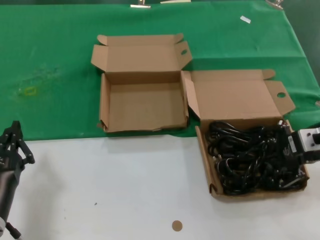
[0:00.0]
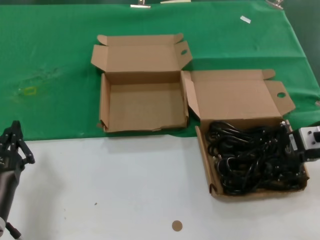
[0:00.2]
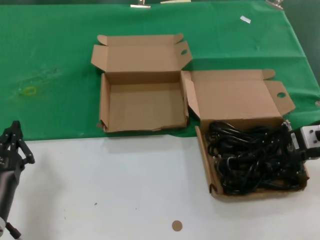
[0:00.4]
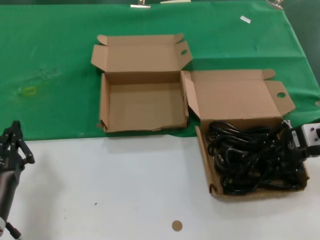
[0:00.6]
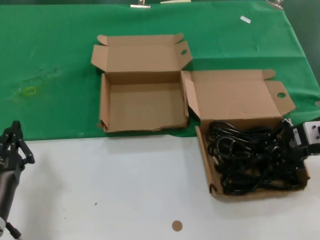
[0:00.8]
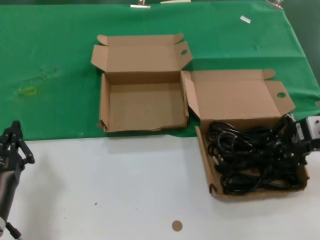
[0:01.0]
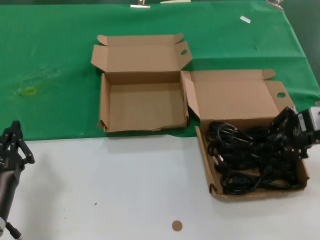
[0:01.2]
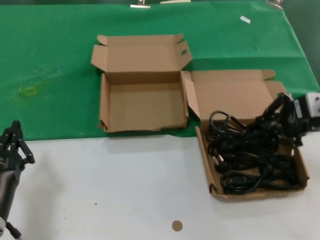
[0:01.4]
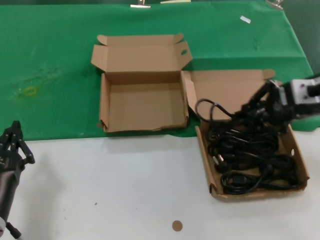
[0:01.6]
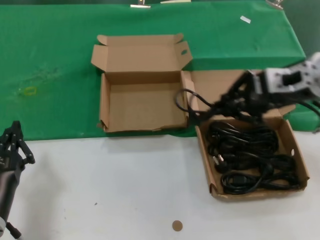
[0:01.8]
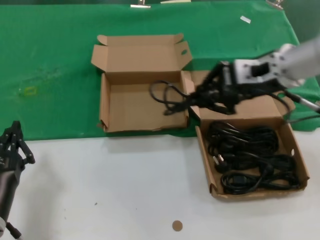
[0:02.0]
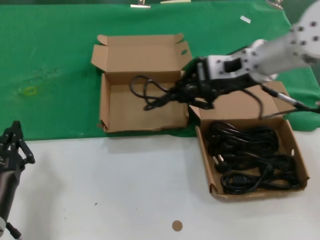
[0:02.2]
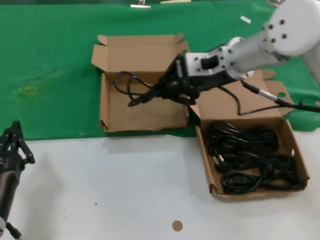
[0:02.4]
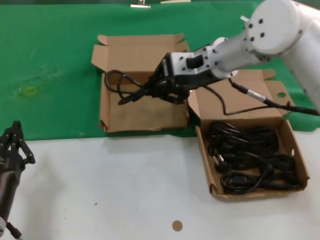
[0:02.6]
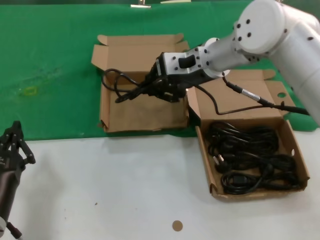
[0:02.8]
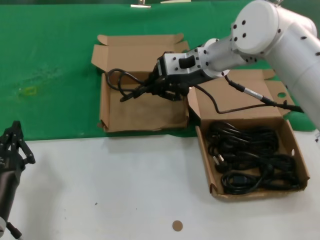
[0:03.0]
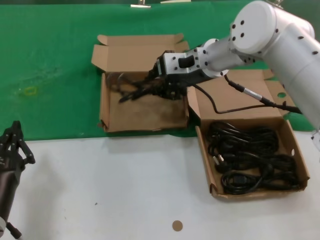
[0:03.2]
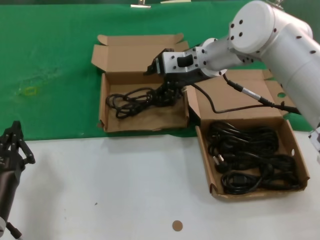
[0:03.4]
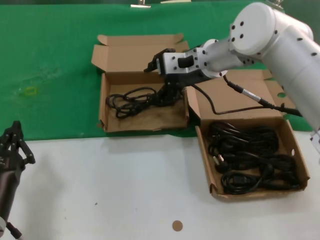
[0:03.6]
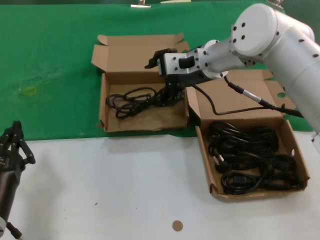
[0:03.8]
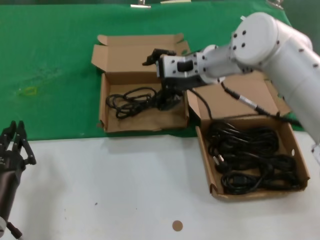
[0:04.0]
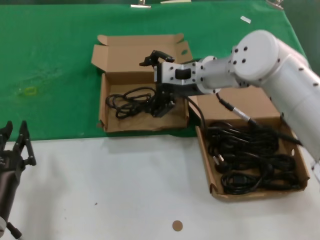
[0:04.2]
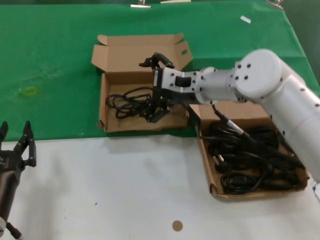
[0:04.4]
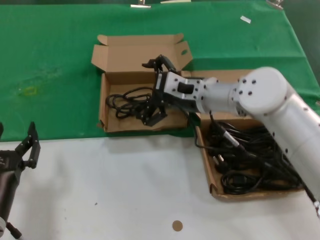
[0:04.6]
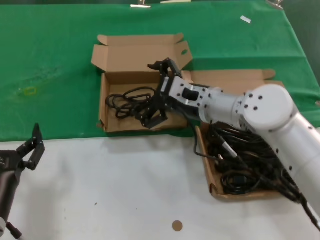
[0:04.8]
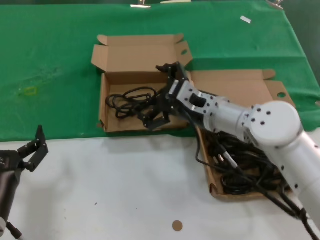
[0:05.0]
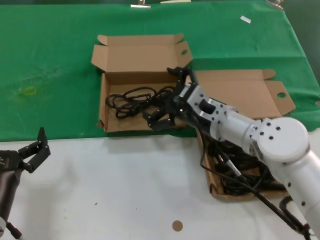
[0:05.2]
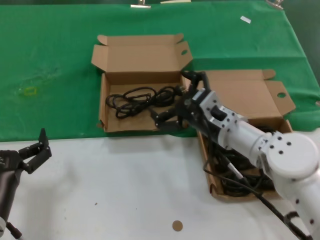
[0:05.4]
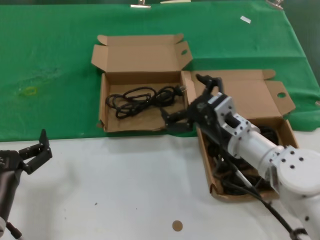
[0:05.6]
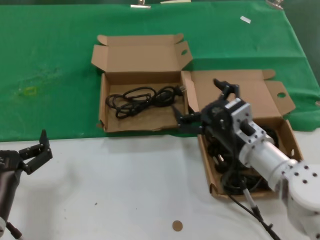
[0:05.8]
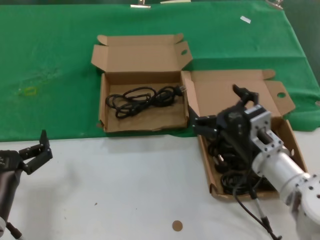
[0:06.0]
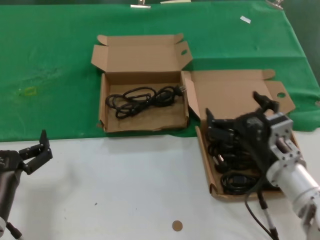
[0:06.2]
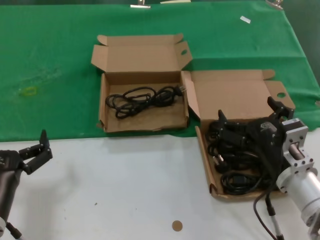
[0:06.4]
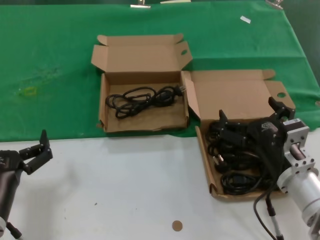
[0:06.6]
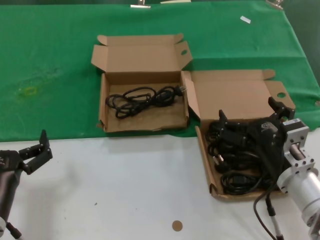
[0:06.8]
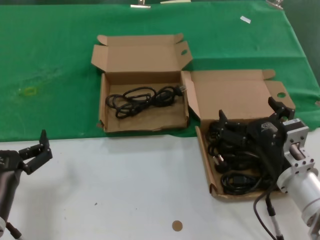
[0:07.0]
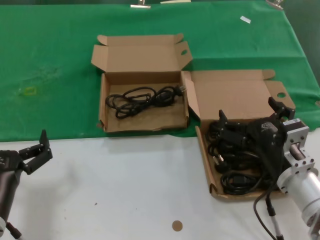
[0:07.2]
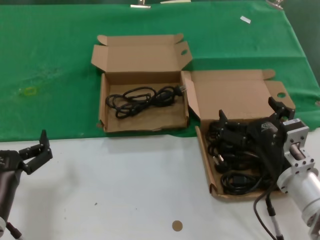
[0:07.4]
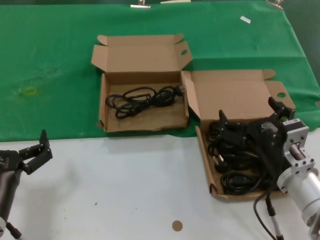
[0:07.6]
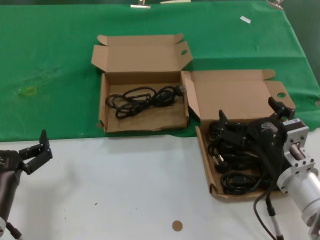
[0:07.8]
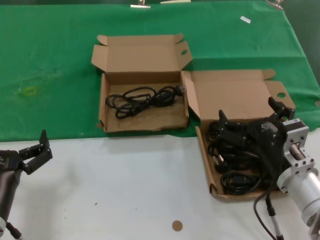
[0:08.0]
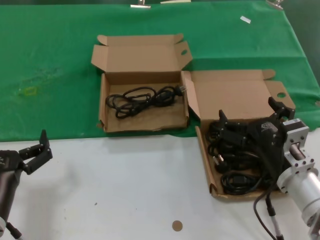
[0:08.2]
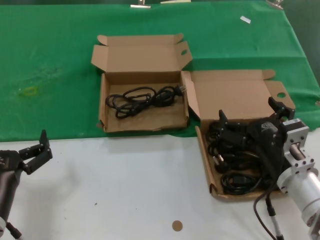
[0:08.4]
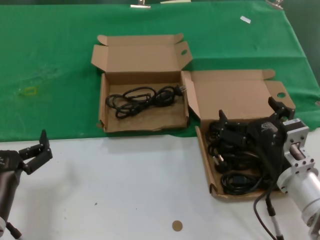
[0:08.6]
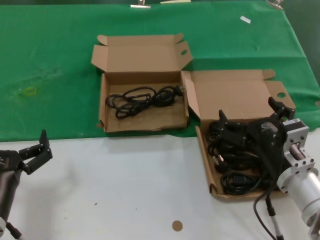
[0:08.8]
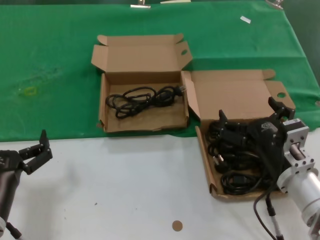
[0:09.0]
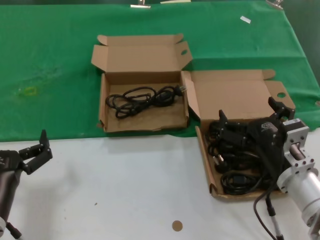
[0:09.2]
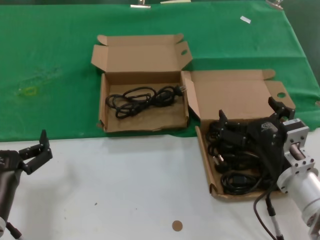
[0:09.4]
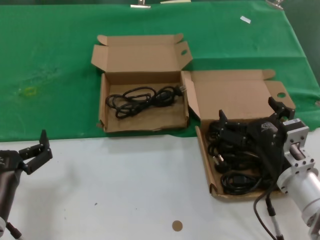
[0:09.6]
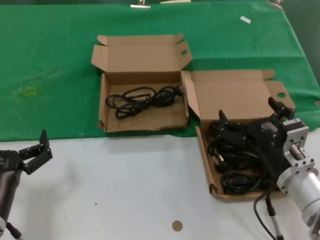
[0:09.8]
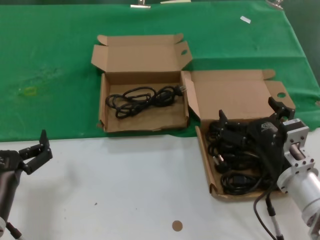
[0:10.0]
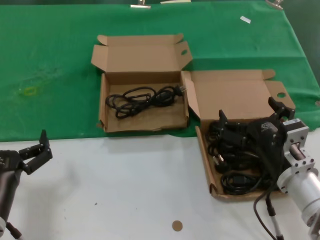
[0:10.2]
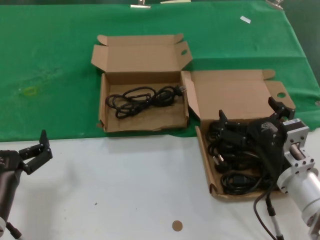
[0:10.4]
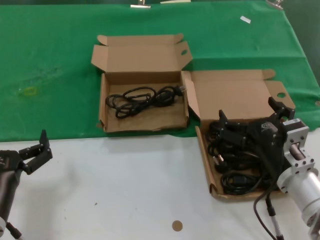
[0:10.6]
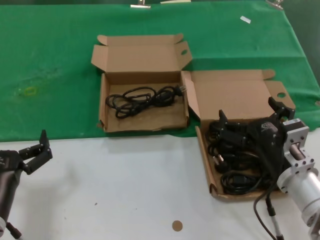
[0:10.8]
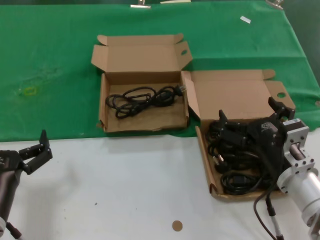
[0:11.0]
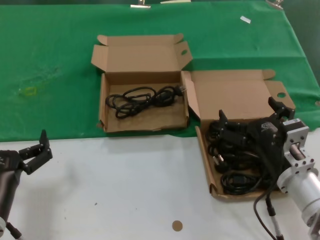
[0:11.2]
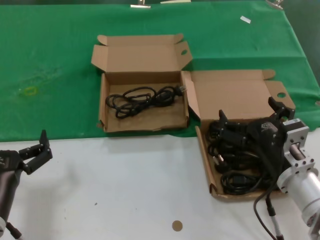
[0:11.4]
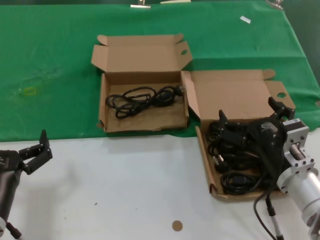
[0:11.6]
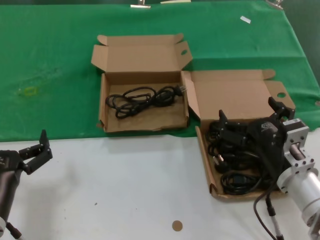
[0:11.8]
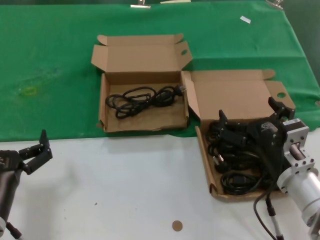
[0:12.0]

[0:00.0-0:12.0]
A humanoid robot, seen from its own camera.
Task of the whole recording: take the parts from the box containing them and put them into an empty box.
Step, 0:00.4 to 0:03.2: Place the data cable in the another box.
0:00.0 to 0:01.6: The right hand is displaced upward by roughly 10 cm.
0:01.6 to 0:03.0: The right hand shifts some 25 cm to the left and forward.
0:03.0 to 0:04.4: The right hand heads downward, covering roughly 5 cm.
0:04.4 to 0:06.0: The right hand goes roughly 20 cm backward, downward and to the right.
0:06.0 to 0:07.6: The right hand changes place by roughly 5 cm.
0:07.6 to 0:12.0: Both hands stay about where they are.

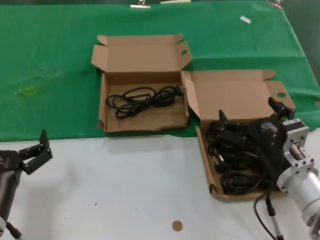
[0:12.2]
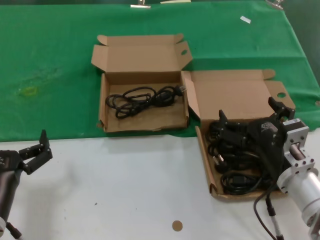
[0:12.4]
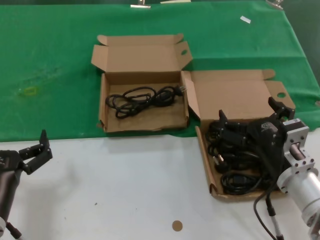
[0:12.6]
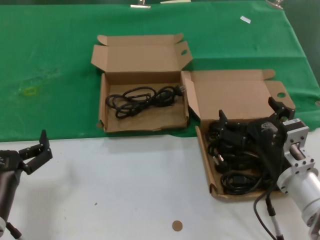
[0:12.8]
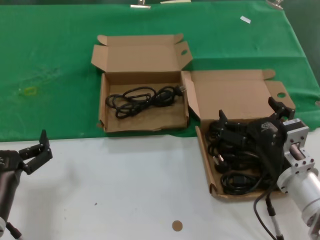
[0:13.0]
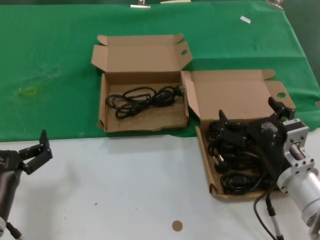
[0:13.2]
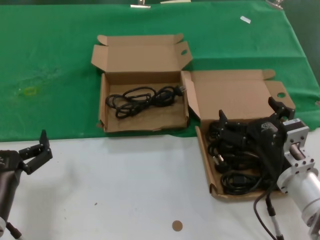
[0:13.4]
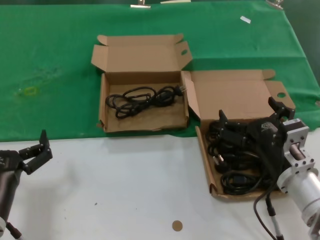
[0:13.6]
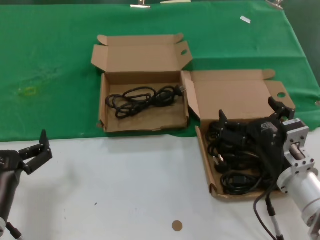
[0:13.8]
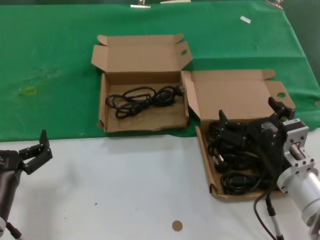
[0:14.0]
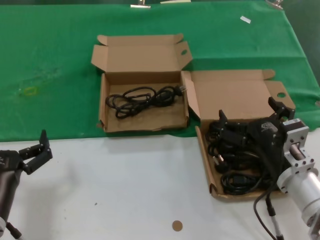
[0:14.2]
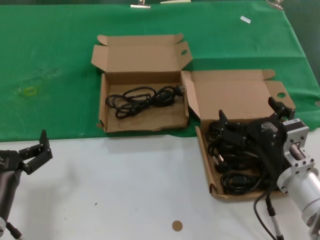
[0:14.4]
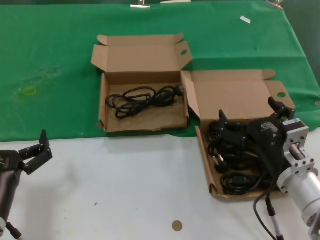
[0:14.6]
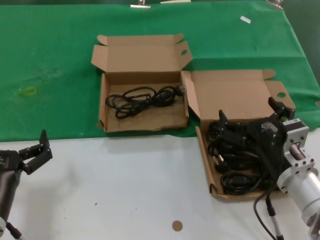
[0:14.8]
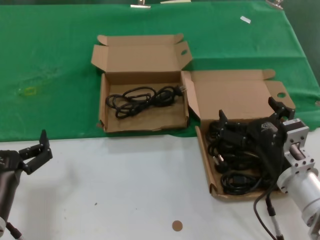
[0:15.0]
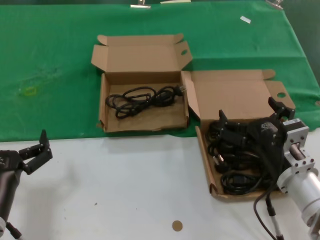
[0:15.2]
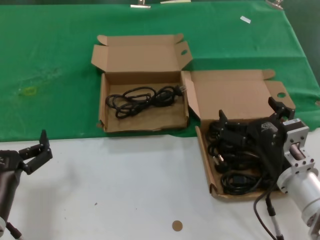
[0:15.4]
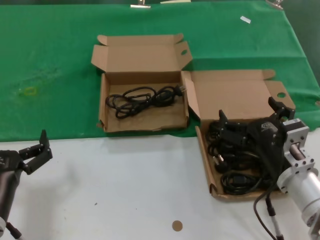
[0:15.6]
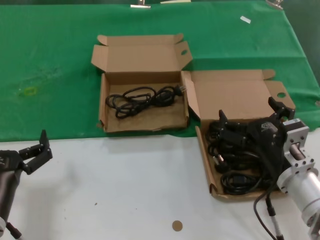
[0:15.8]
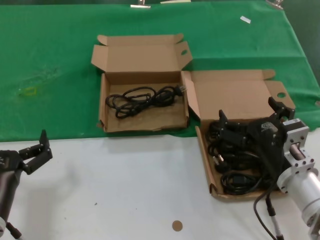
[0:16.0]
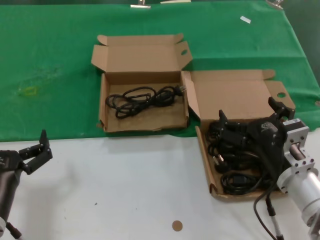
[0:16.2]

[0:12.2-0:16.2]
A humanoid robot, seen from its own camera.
Task of the whole recording: take the parts from the box containing them and put them into an empty box.
0:12.2 to 0:16.2: The two hands keep their place.

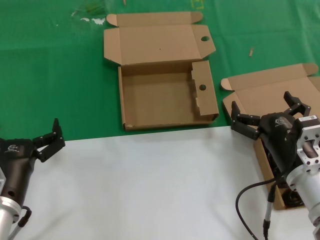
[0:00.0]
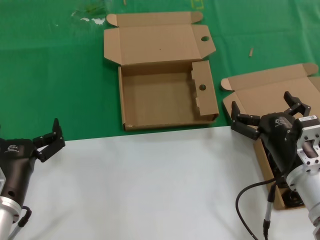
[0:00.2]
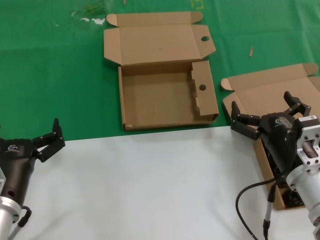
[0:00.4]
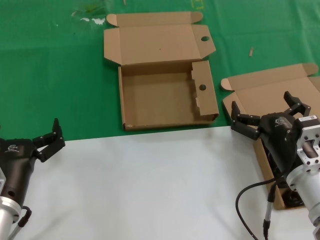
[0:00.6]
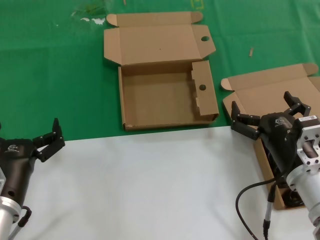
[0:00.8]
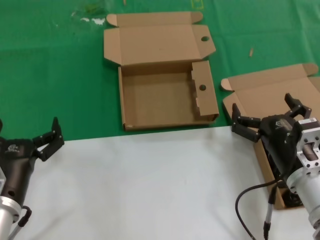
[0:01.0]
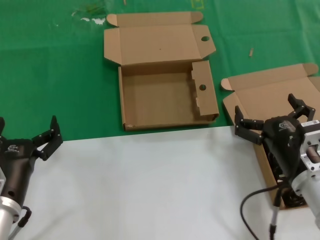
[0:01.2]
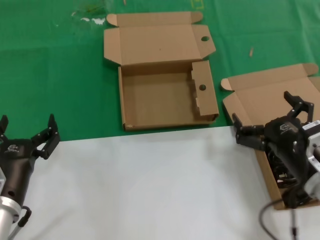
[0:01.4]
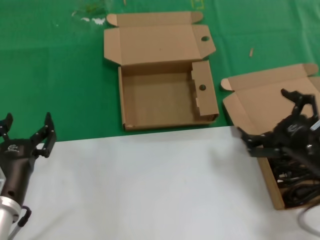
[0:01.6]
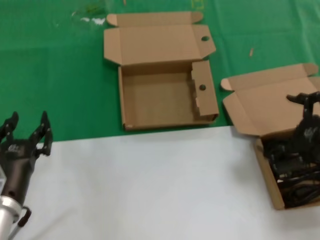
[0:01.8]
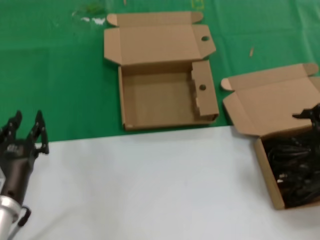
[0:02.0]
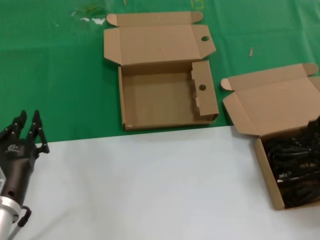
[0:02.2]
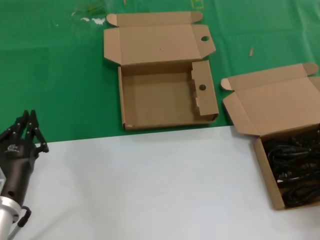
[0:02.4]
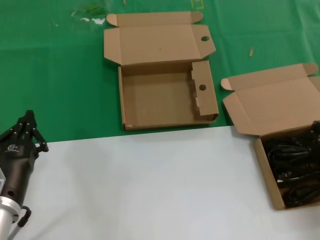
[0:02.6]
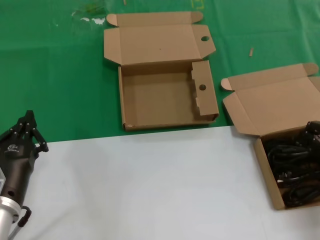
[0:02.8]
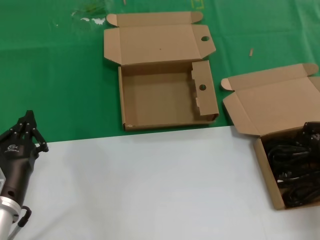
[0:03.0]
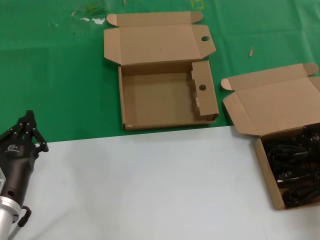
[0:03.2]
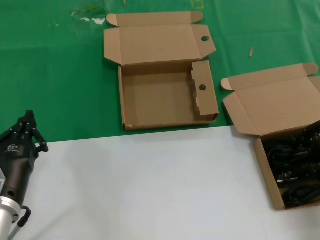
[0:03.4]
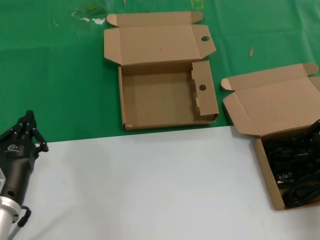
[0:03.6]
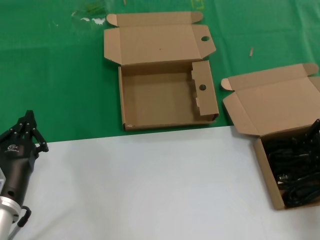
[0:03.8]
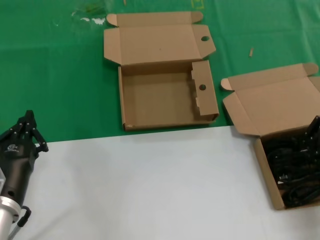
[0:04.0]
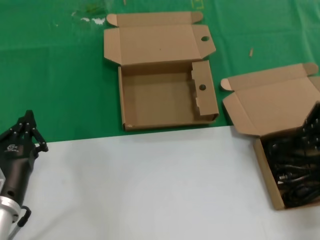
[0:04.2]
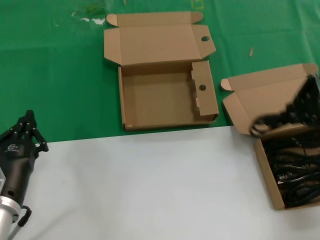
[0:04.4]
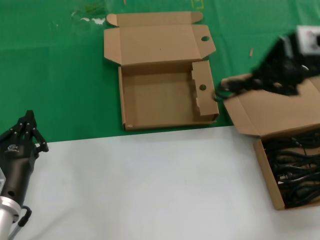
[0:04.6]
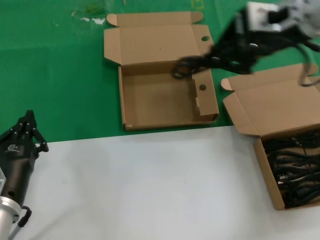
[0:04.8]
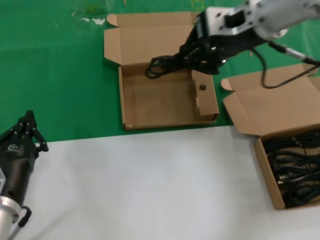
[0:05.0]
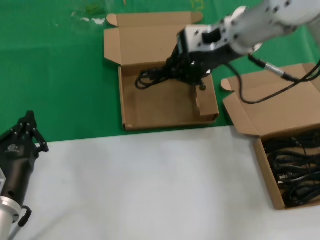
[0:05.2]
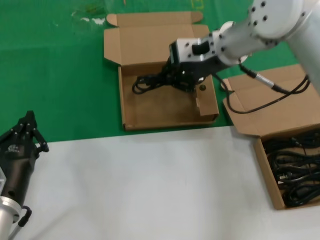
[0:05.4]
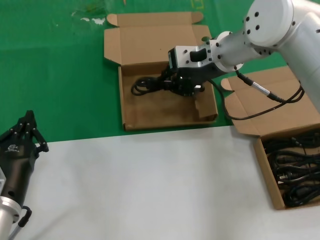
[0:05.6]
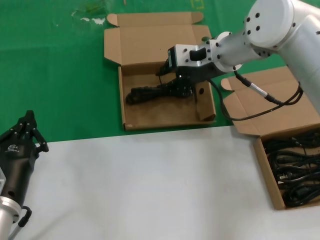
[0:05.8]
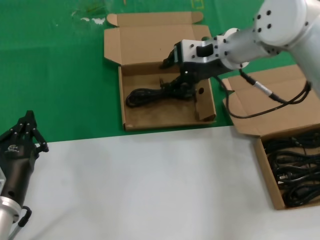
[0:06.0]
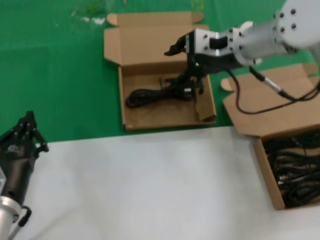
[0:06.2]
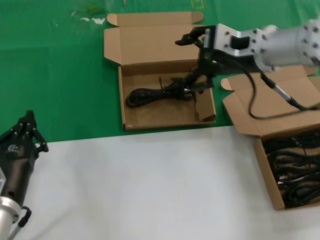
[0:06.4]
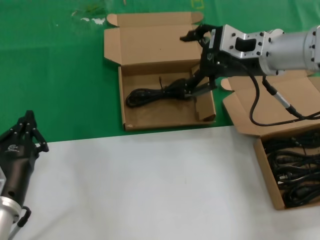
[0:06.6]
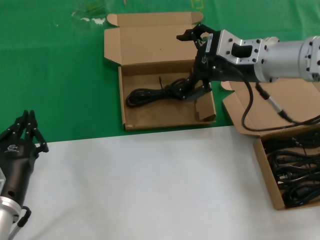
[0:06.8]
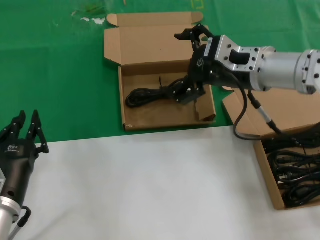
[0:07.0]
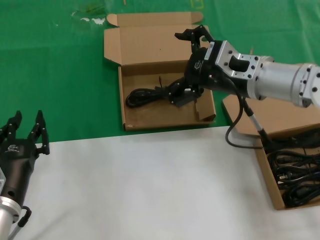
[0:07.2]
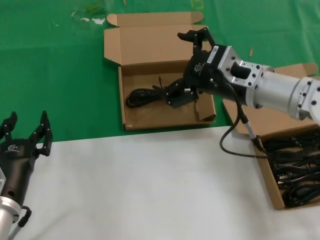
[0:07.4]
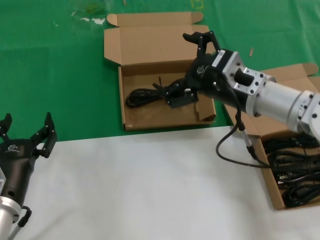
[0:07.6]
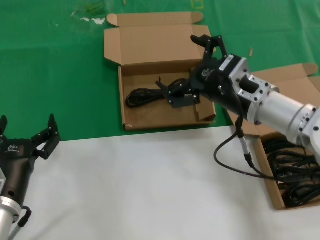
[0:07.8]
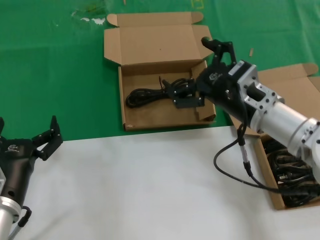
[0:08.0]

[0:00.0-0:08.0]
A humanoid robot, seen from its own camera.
Task of the whole recording: take the parts from the box containing them and put them into an empty box.
Step, 0:00.0 to 0:03.6: Grasp the data cable.
Step, 0:03.8 to 0:06.0: Place the data cable in the another box.
0:00.0 to 0:01.6: The right hand travels to the right and upward by some 10 cm.
0:01.6 to 0:03.2: The right hand heads forward, to the right and upward, covering approximately 15 cm.
0:03.2 to 0:04.8: The right hand goes approximately 25 cm upward and to the left.
0:04.8 to 0:06.4: The right hand is displaced downward by about 10 cm.
0:06.4 to 0:08.0: The right hand is displaced downward and backward by roughly 15 cm.
